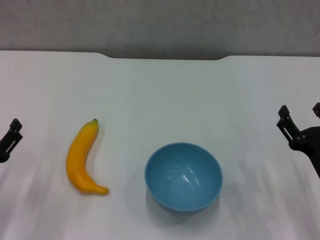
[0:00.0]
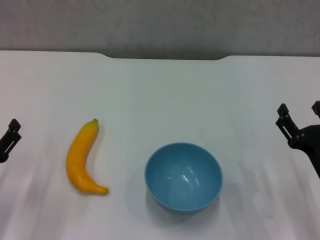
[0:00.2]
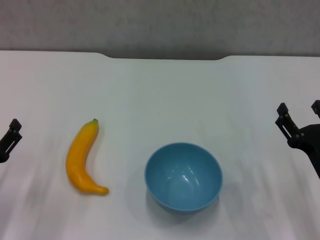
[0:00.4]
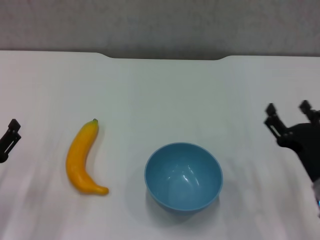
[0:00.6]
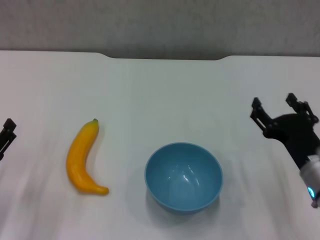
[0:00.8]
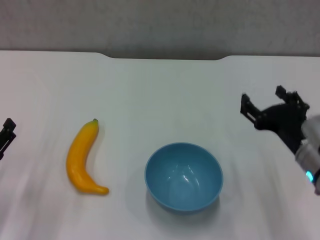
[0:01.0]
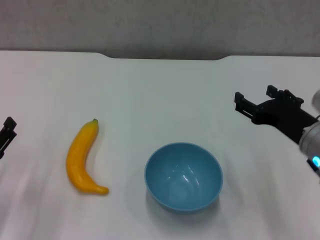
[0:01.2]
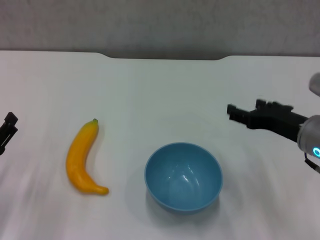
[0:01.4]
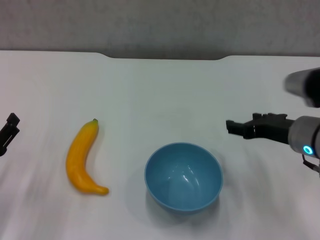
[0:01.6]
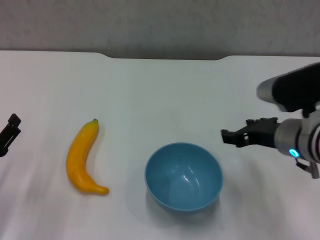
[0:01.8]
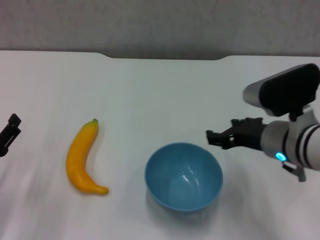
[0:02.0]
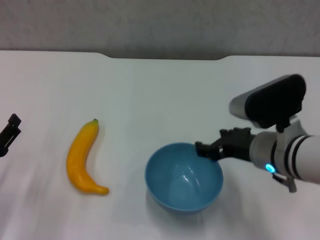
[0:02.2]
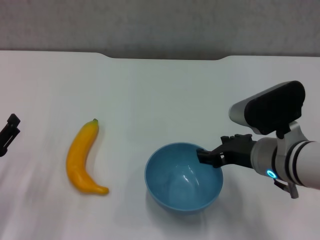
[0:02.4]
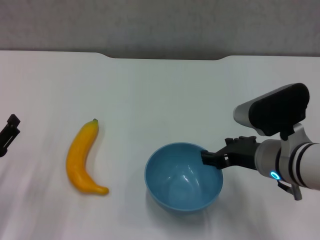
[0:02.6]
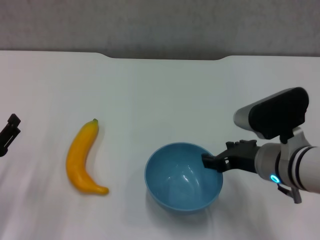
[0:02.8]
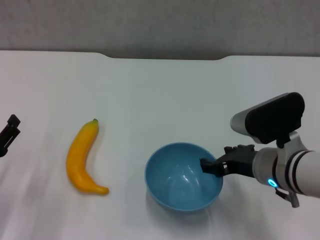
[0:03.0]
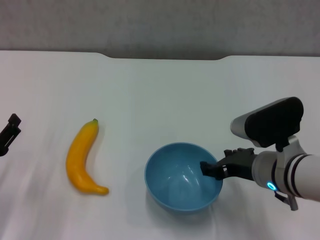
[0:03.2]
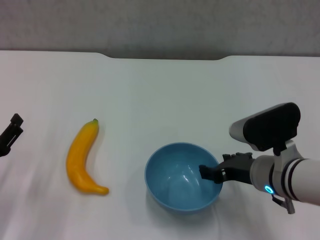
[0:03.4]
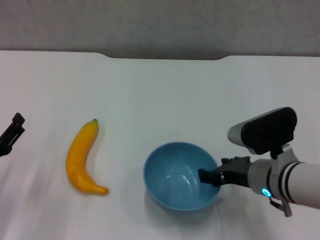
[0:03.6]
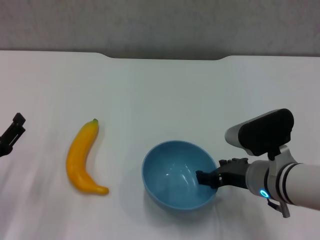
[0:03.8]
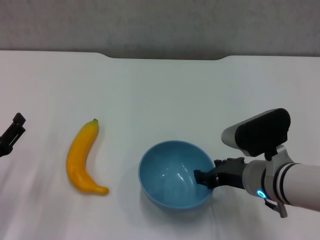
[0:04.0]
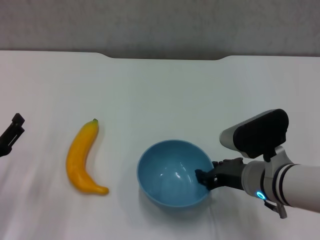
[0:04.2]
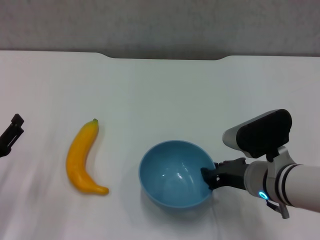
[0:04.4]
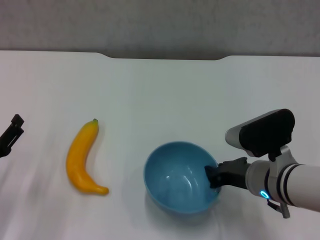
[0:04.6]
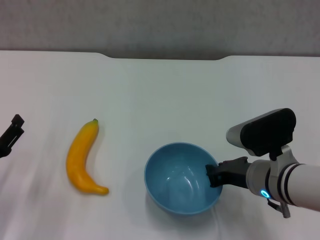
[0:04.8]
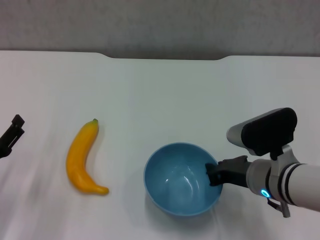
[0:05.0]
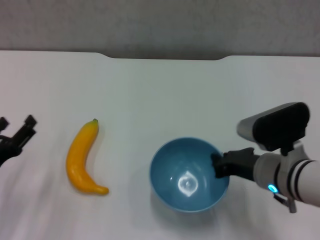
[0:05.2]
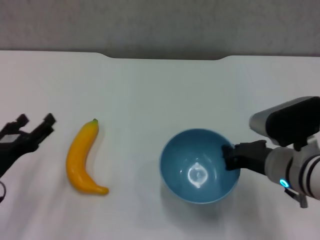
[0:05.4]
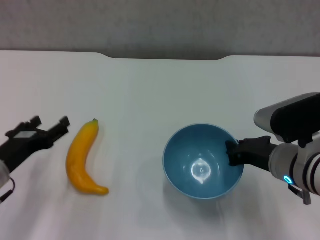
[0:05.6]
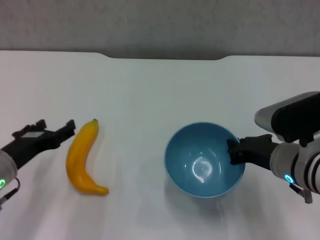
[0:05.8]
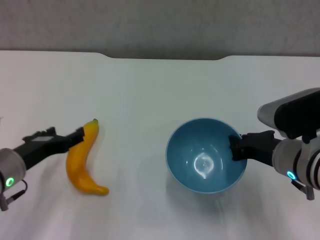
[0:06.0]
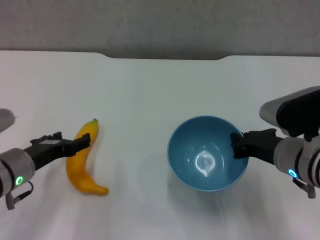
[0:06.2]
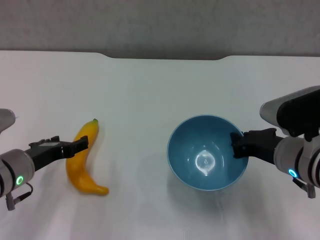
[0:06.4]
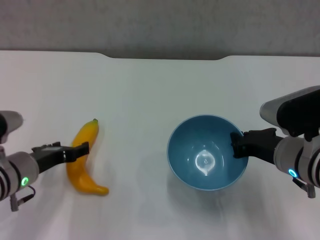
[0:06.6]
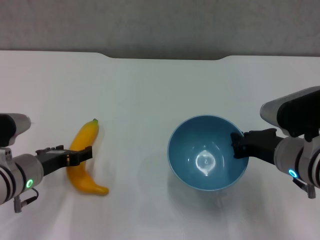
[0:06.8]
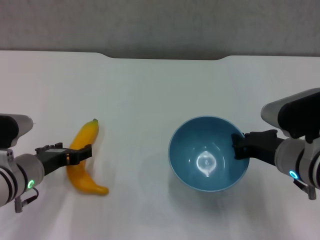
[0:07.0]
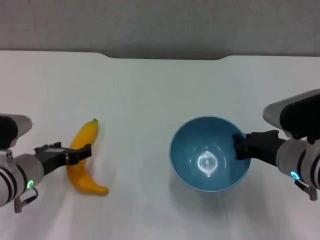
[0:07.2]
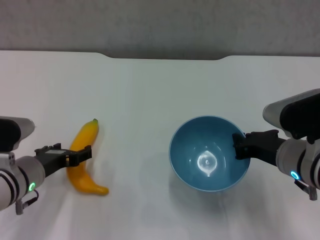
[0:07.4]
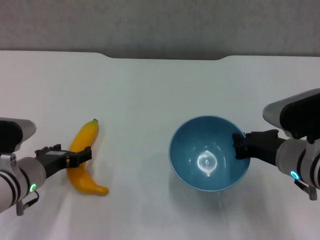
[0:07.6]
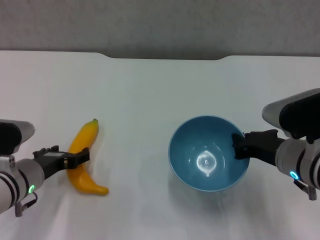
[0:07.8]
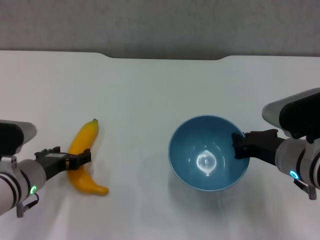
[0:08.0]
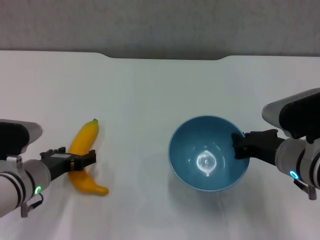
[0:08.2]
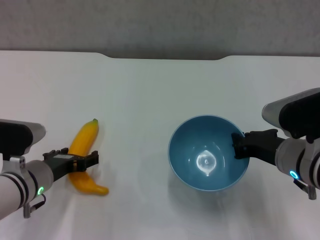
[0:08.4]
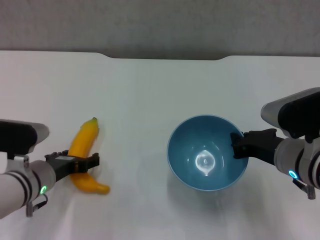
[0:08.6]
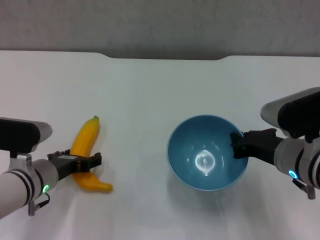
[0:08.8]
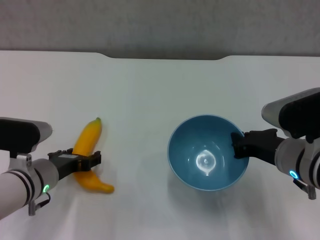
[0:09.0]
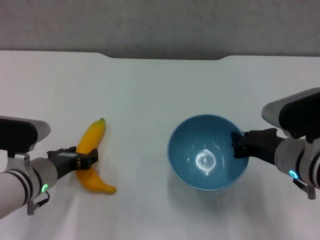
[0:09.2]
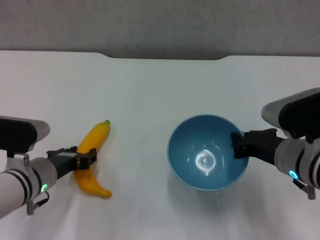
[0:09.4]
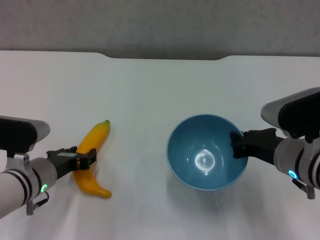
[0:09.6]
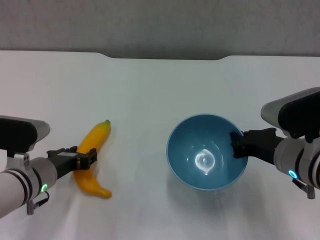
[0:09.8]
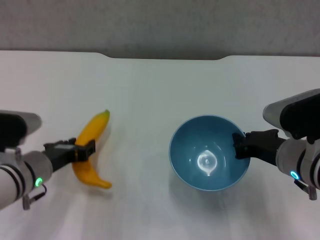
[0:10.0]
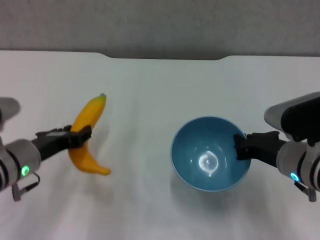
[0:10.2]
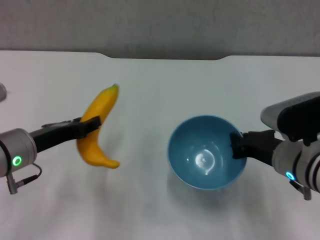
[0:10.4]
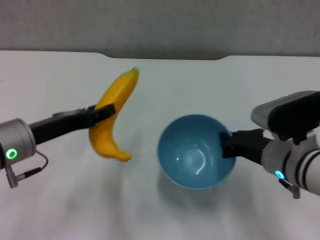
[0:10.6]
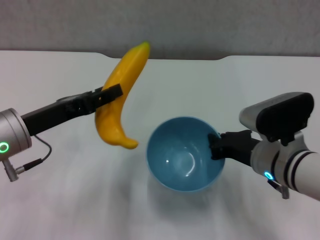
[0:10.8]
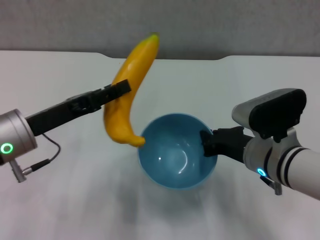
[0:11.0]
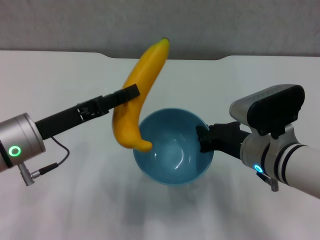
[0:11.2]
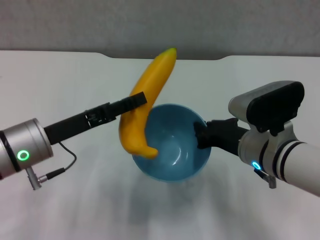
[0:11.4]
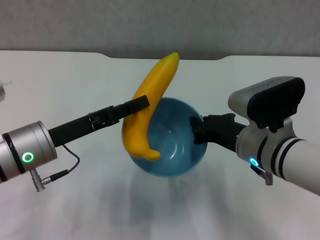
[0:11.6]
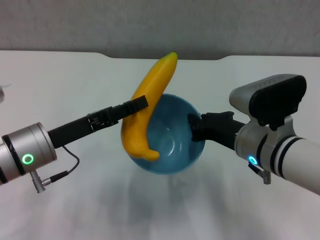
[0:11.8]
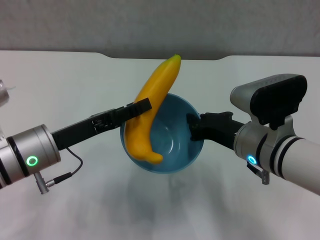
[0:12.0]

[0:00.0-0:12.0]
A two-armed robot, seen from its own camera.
Step, 0:00.0 to 0:04.4: Grasp the blue bowl with right gripper.
Step, 0:04.8 to 0:05.6: Lift the blue bowl with right gripper.
Step, 0:05.8 to 0:09.4: Grasp the banana with left gripper.
0:00.0 to 0:01.6: The right gripper shifts some 10 cm upward and forward.
0:01.6 to 0:03.0: The right gripper shifts about 5 cm to the left.
0:03.0 to 0:04.4: There are only small adjustments of the grippers.
0:04.4 to 0:06.0: The right gripper closes its fingers; the left gripper moves to the right and forward, approximately 10 cm.
0:06.0 to 0:09.0: The grippers make only small movements.
0:09.0 to 0:10.4: The left gripper goes roughly 10 cm upward, and closes up.
0:10.4 to 0:12.0: The right gripper goes roughly 5 cm to the left.

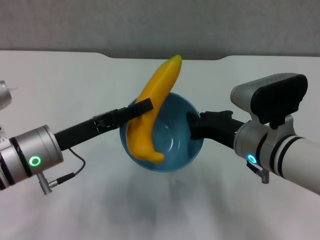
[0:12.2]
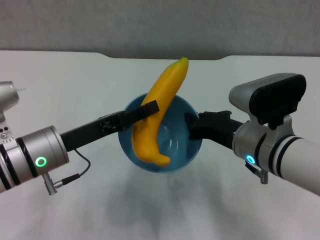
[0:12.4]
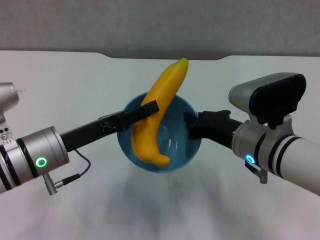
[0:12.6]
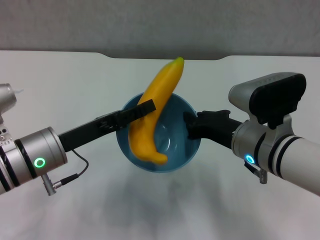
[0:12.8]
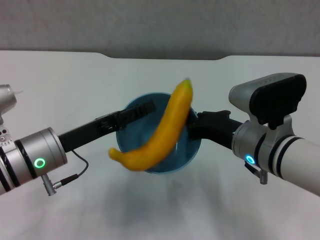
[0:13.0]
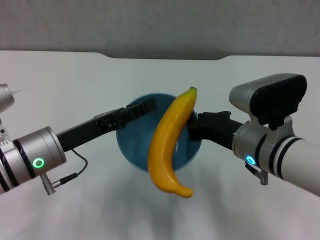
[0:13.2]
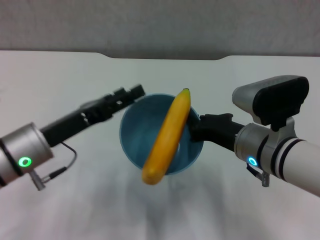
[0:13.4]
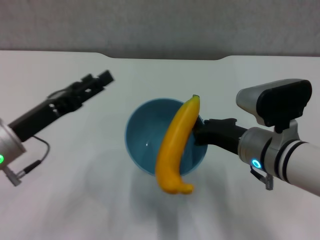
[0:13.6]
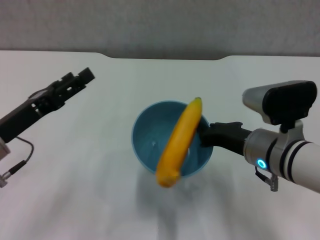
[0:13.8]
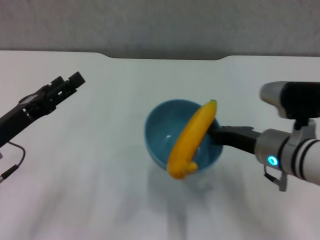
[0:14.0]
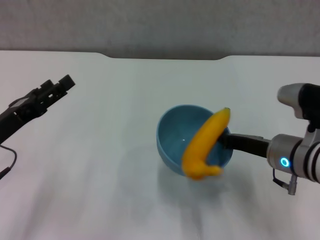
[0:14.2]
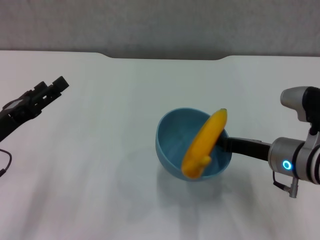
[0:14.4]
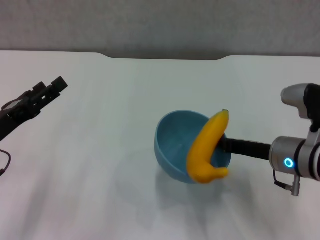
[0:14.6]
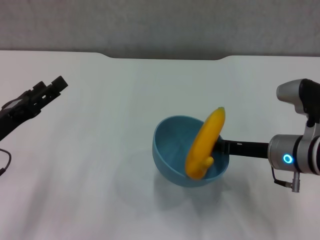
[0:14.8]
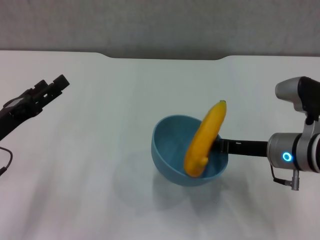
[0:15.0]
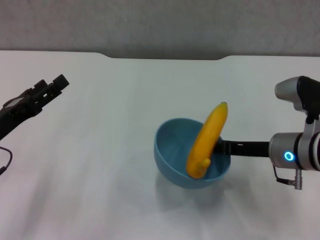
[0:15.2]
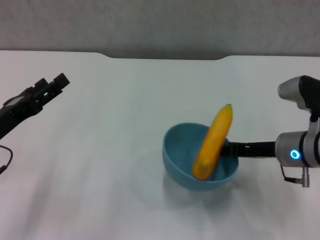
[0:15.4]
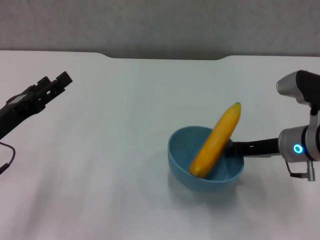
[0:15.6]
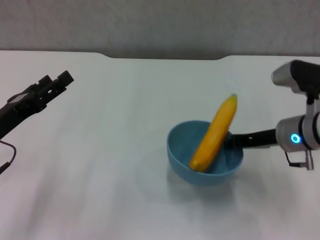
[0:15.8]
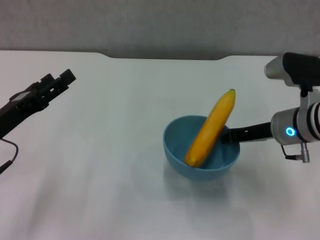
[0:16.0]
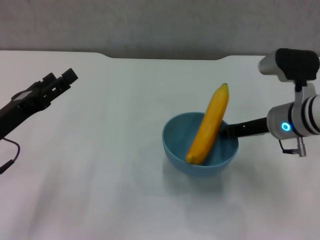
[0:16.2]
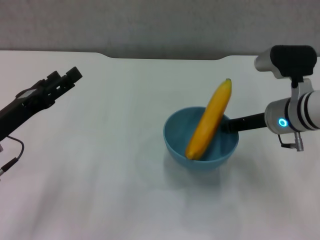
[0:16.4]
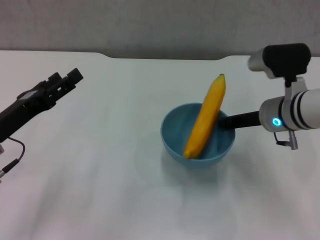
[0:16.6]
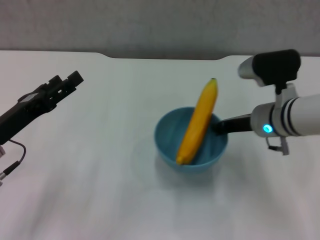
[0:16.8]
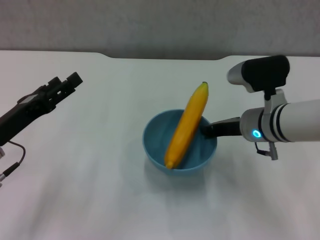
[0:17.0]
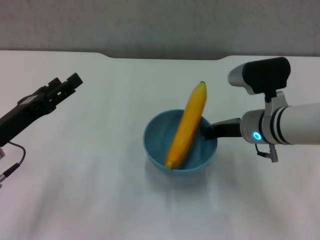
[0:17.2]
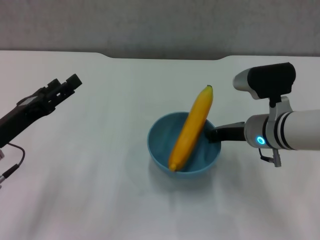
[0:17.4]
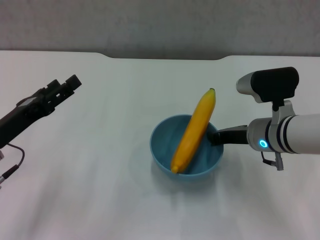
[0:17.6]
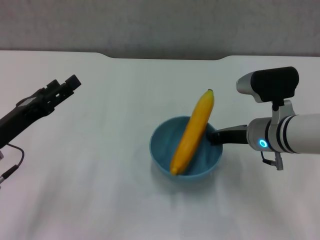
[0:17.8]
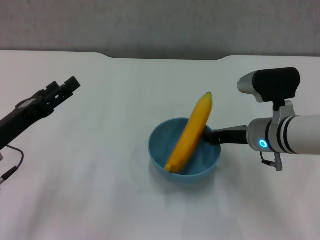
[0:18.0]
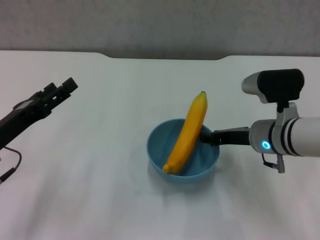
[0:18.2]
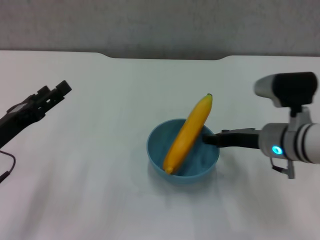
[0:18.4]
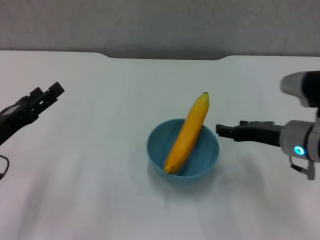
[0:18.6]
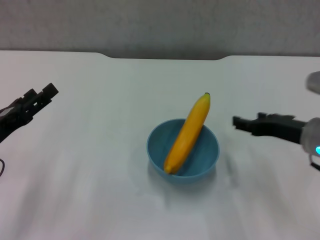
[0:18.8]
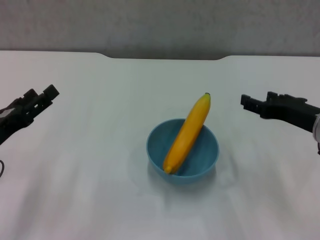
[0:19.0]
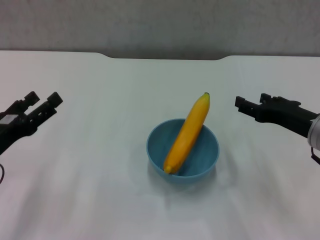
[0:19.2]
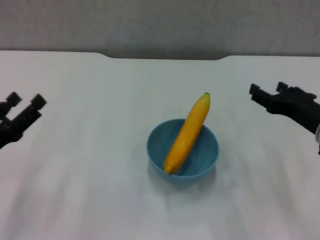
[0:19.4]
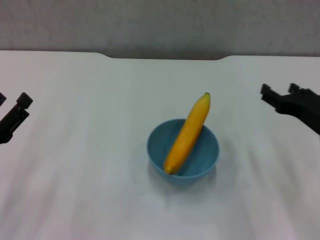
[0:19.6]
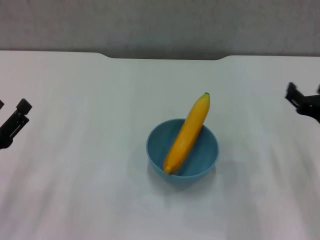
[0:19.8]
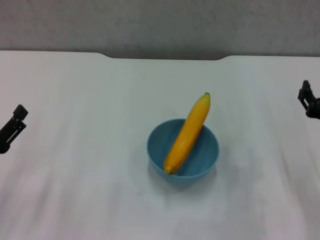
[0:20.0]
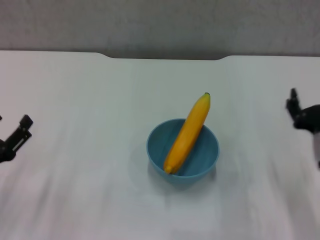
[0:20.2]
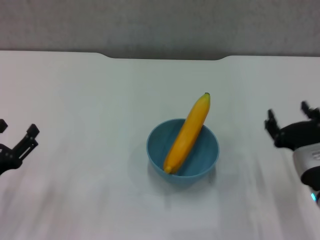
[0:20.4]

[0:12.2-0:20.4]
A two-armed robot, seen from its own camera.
Step, 0:13.4 to 0:18.4: Place the bowl on the table with right gripper.
0:12.2 to 0:13.8: The left gripper moves to the left, approximately 5 cm, and opens its fingers.
0:13.8 to 0:15.4: The right gripper heads to the right, covering roughly 5 cm.
0:15.4 to 0:17.2: The right gripper shifts roughly 5 cm to the left.
0:17.2 to 0:18.8: The right gripper moves to the right and backward, about 10 cm, and opens up.
0:18.8 to 0:20.4: The right gripper travels downward and backward by about 10 cm. The left gripper heads downward, covering approximately 5 cm.

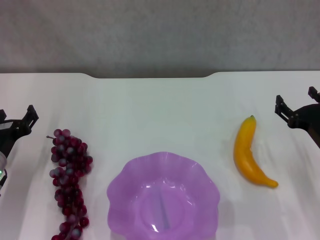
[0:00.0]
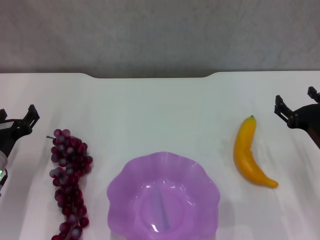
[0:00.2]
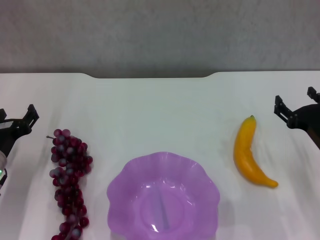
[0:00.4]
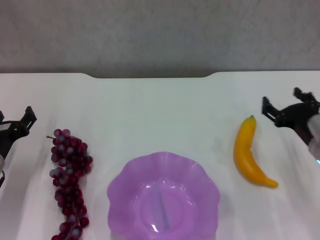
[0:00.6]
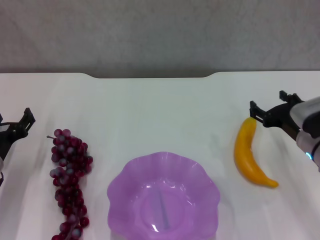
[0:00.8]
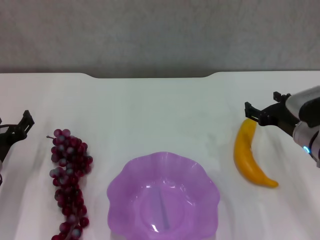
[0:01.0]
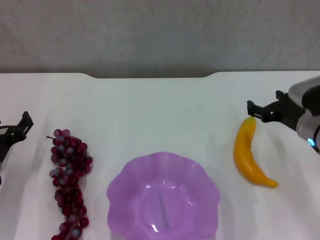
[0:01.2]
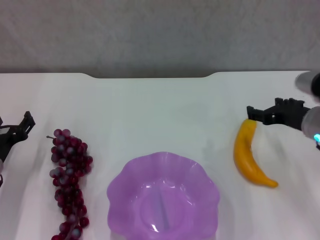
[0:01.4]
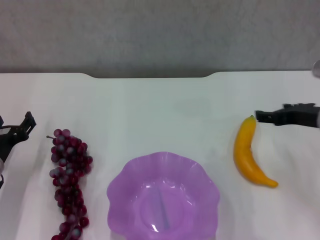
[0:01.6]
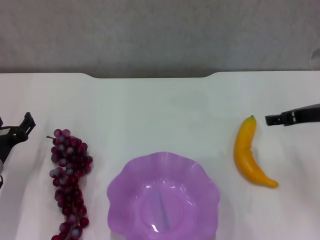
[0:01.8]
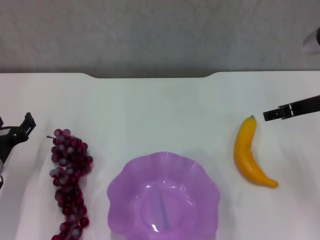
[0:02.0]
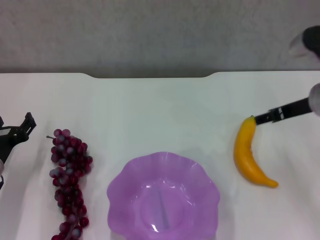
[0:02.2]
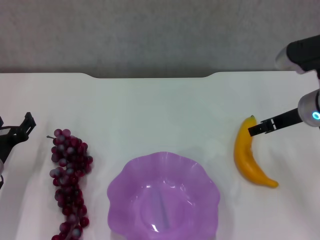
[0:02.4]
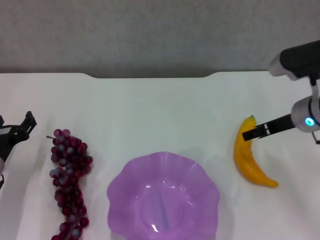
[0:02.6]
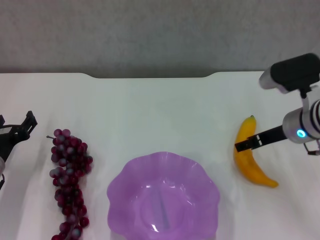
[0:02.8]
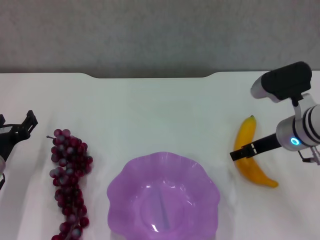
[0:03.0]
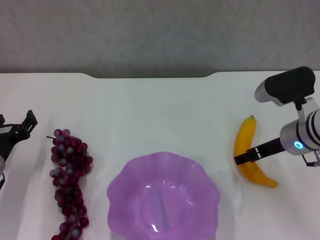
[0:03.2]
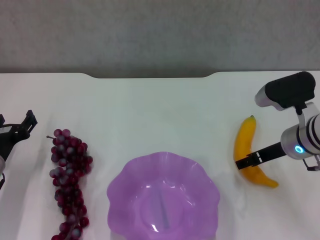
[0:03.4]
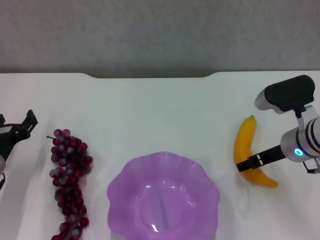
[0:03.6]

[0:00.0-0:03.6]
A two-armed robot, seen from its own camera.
0:00.0 to 0:01.8: The right gripper travels upward and forward by roughly 10 cm.
0:01.8 to 0:03.6: The right gripper goes about 5 cm downward.
